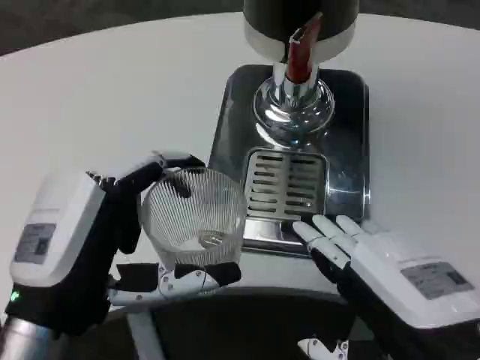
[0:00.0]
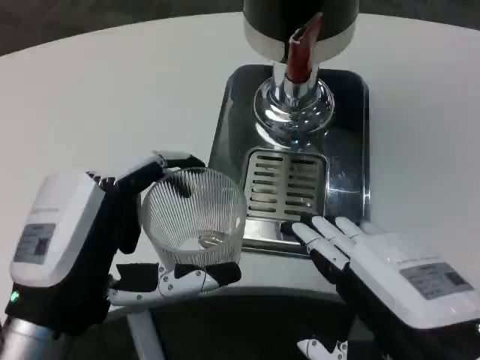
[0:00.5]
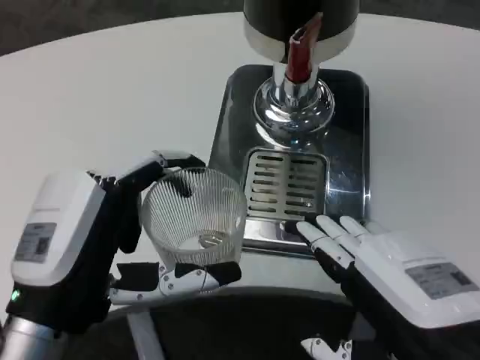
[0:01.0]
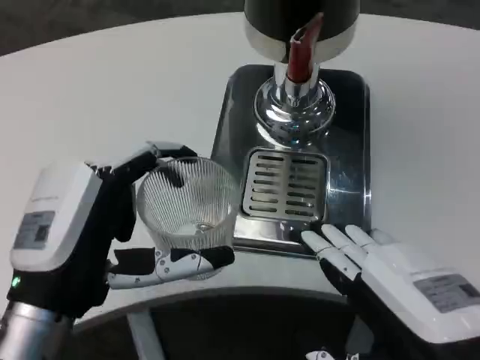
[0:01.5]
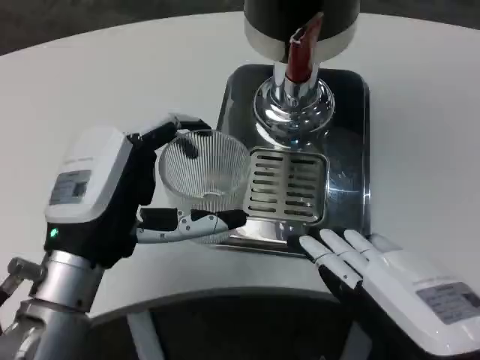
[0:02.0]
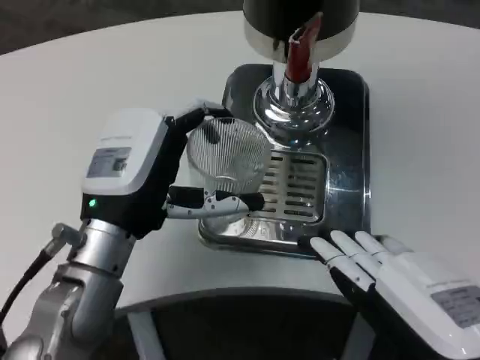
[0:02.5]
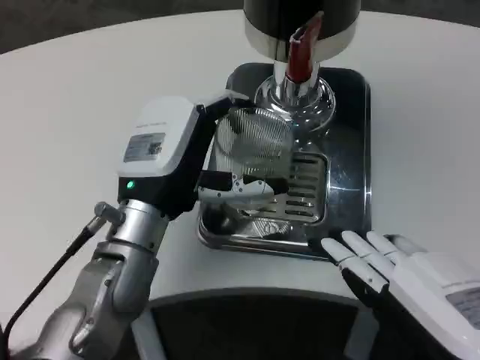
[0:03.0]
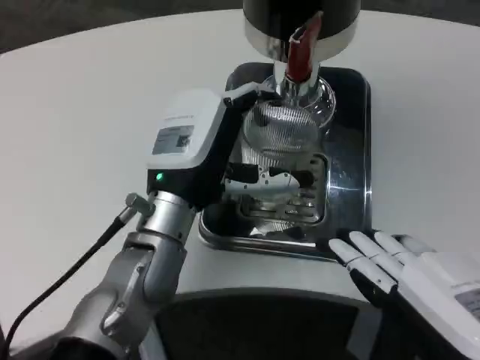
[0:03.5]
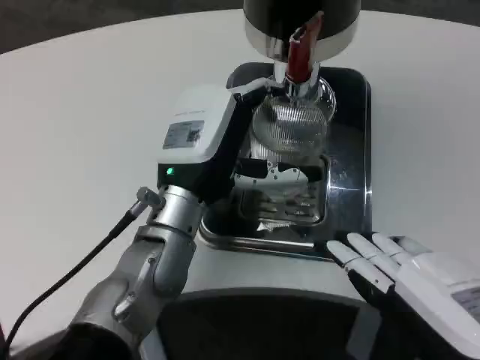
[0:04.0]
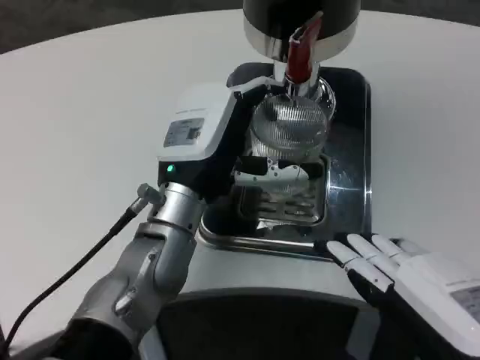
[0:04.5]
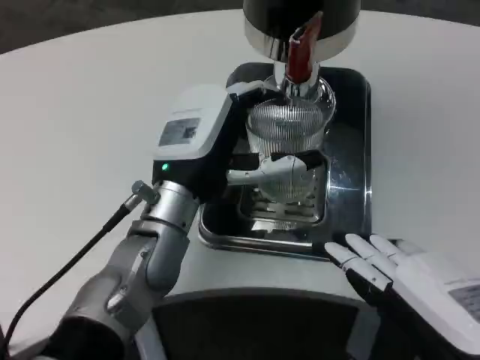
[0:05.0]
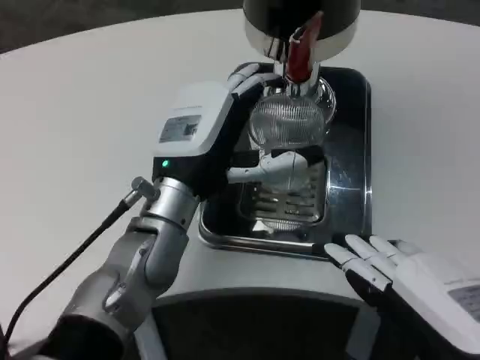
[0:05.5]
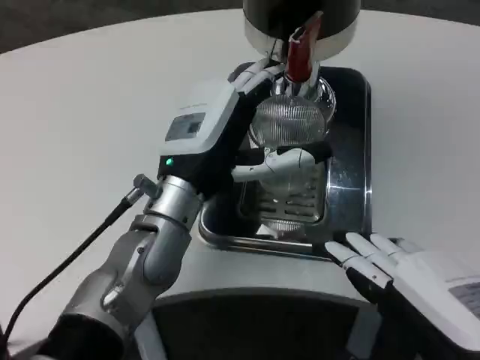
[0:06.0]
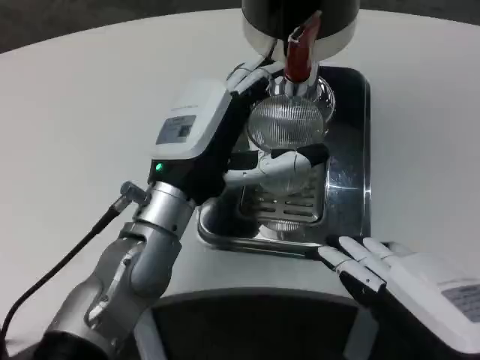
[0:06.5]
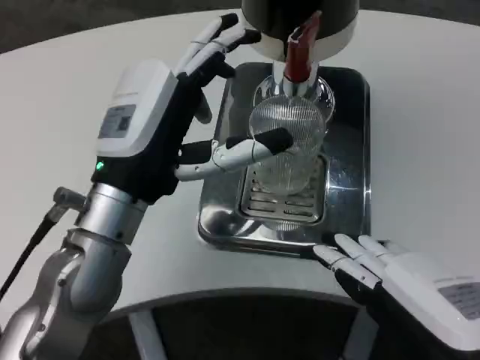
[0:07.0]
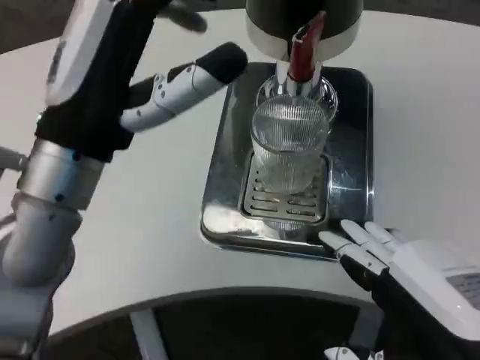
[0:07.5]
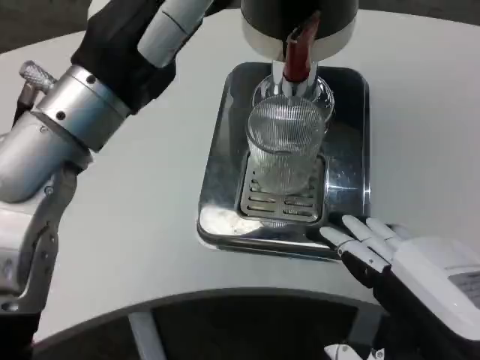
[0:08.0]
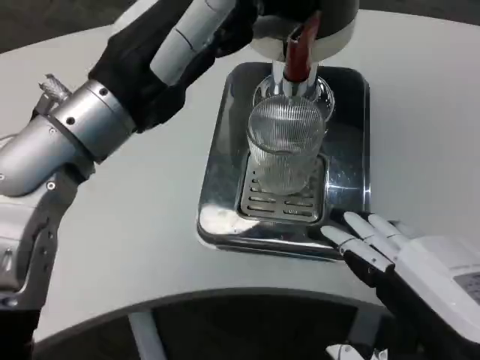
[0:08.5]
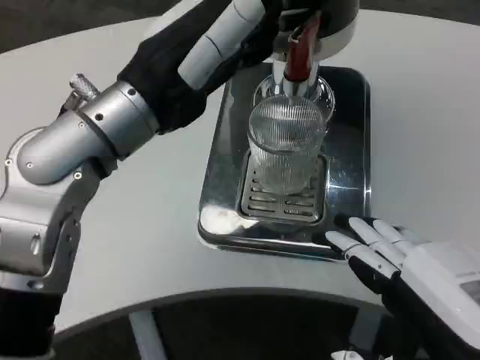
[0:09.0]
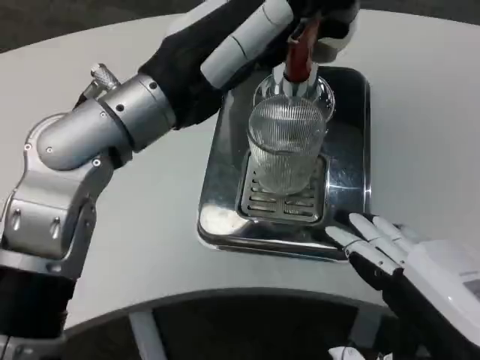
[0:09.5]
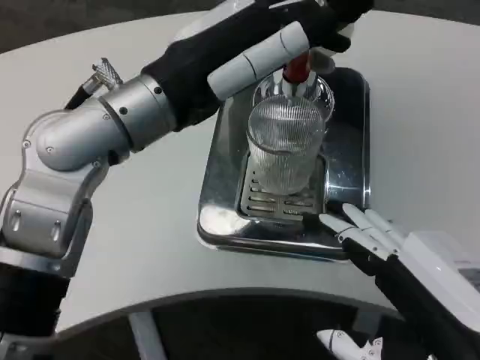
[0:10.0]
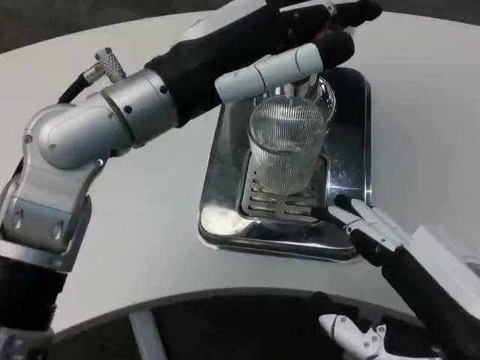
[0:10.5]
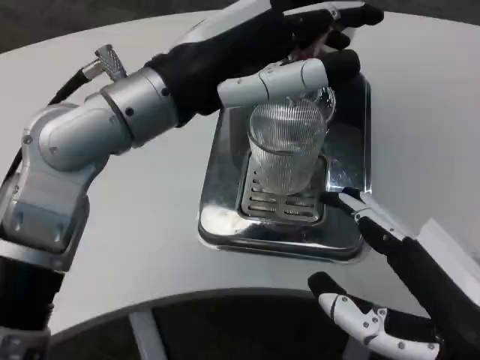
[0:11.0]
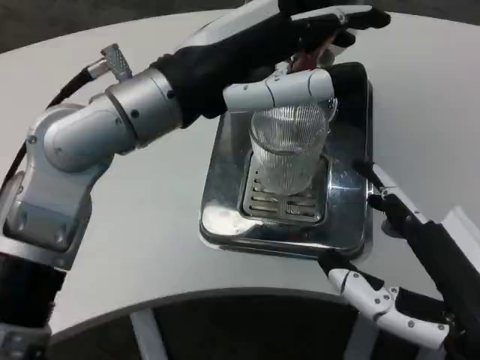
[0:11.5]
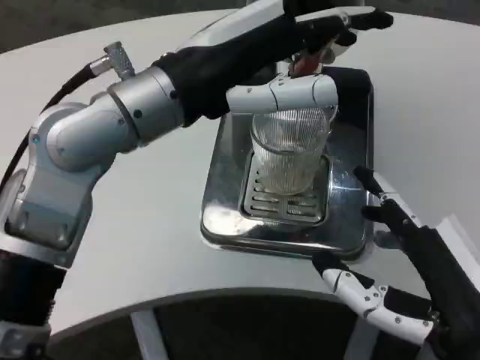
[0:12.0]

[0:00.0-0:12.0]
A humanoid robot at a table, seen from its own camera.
Task of the whole recording: Grasp the cup under the faucet to collect the drink, then remove the cup.
0:00.0 to 0:02.0: The left hand heads forward, covering approximately 5 cm.
0:02.0 to 0:04.0: The left hand moves forward and to the right, some 10 cm.
0:04.0 to 0:06.0: The hands stay close to where they were, moving slightly.
0:06.0 to 0:08.0: The left hand goes roughly 15 cm upward, to the left and backward.

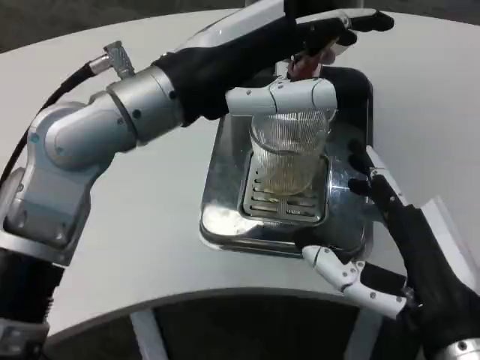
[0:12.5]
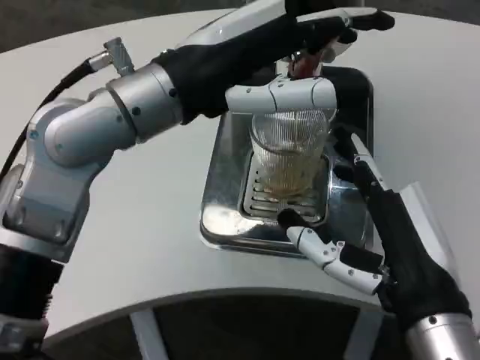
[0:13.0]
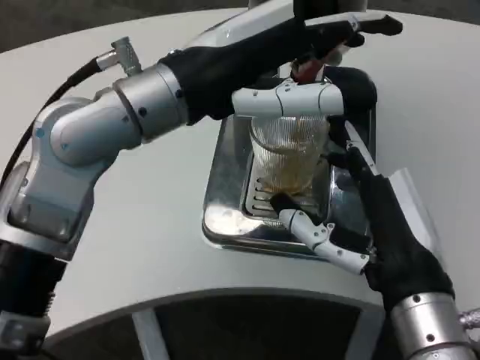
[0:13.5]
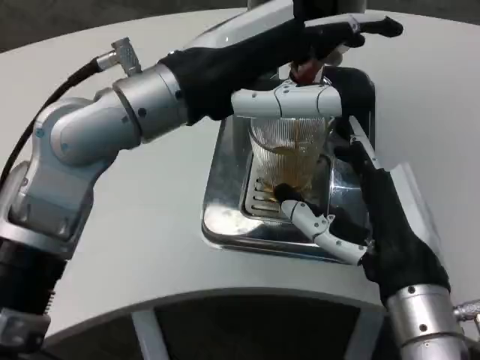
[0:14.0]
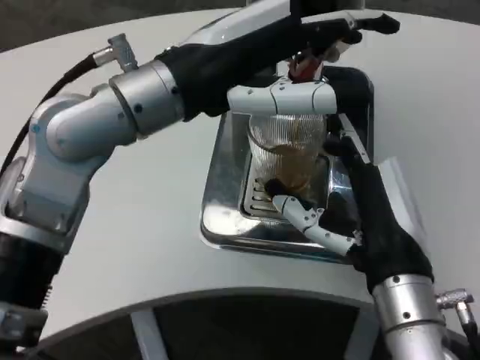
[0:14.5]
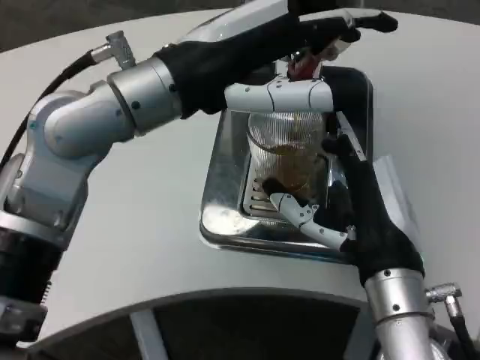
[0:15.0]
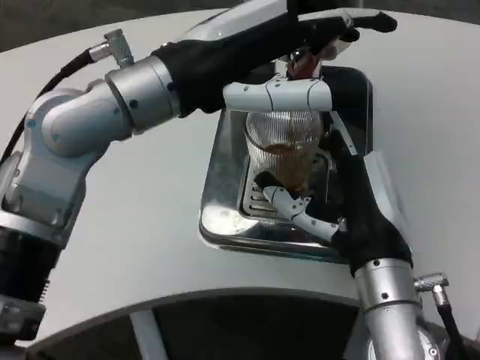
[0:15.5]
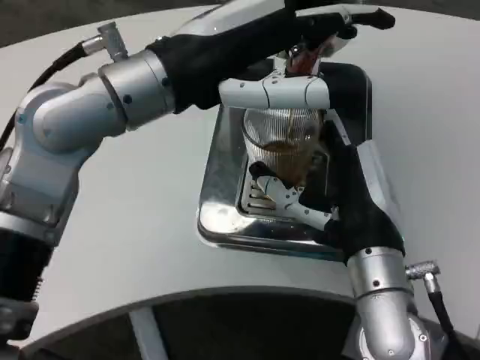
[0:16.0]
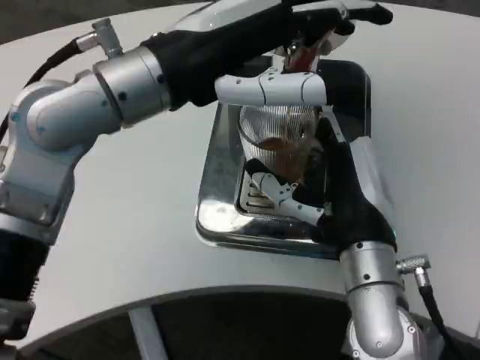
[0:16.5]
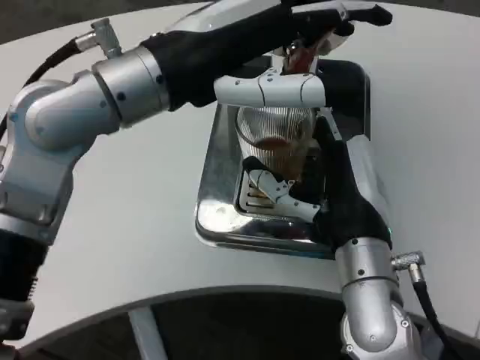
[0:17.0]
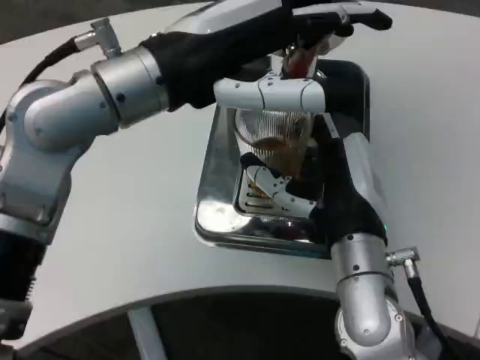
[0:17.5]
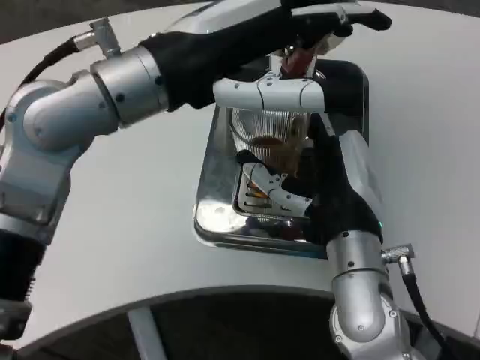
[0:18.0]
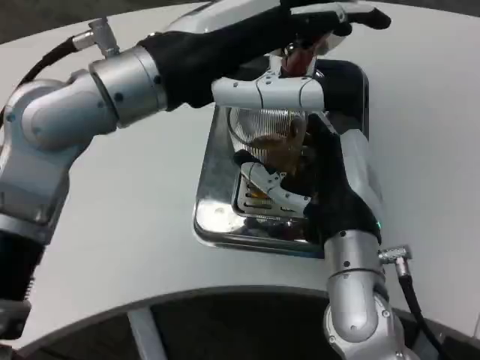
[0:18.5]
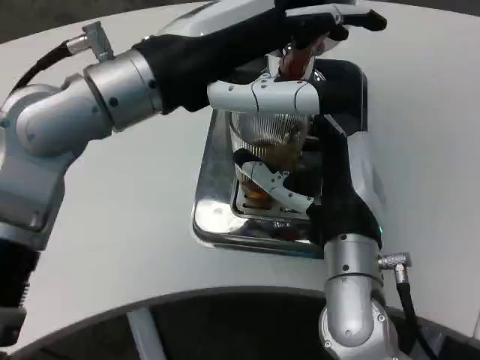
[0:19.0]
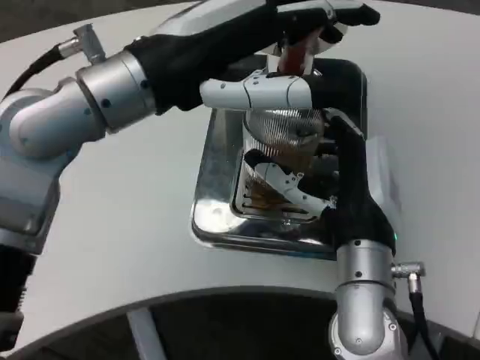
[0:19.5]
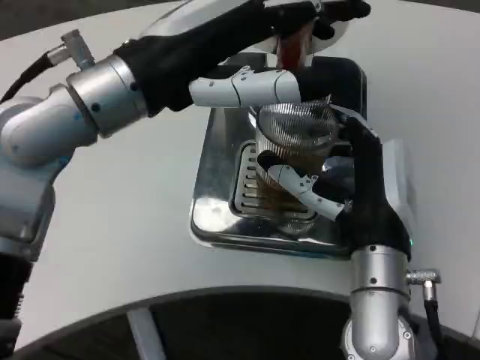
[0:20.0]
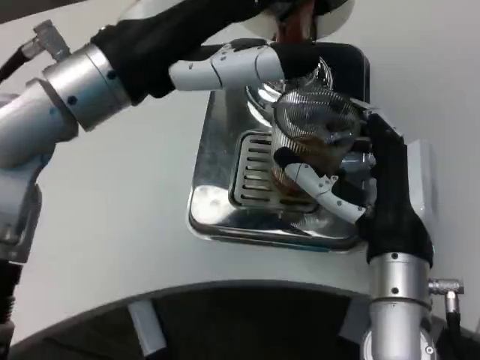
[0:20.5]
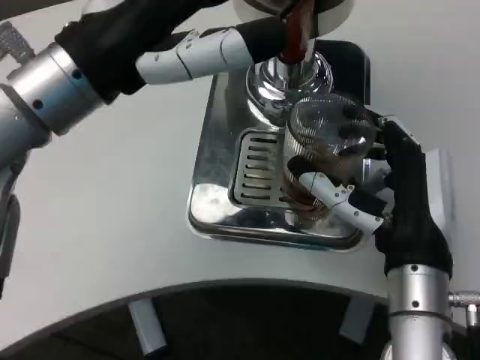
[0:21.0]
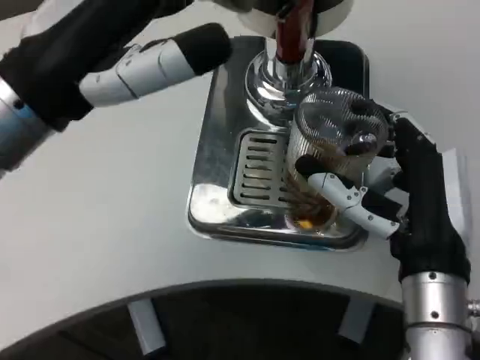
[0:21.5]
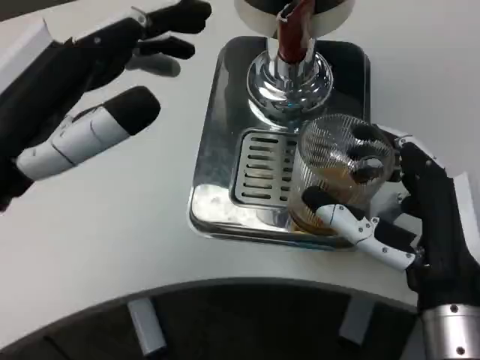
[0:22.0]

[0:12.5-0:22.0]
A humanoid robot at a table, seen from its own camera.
Task of the whole recording: Grasp the cup under the faucet to collect the drink, then remove the cup.
0:12.5 to 0:14.5: The right hand travels forward by some 5 cm.
0:16.5 to 0:18.0: The hands stay close to where they were, moving slightly.
0:20.0 to 0:22.0: The left hand travels backward, to the left and downward by roughly 15 cm. The right hand goes about 5 cm backward.

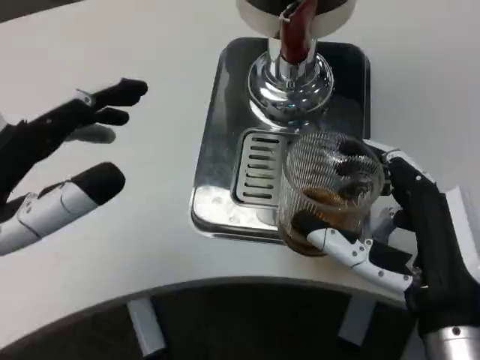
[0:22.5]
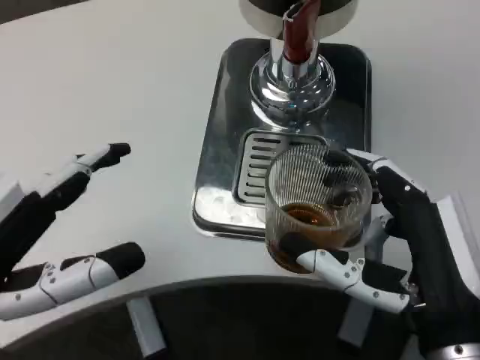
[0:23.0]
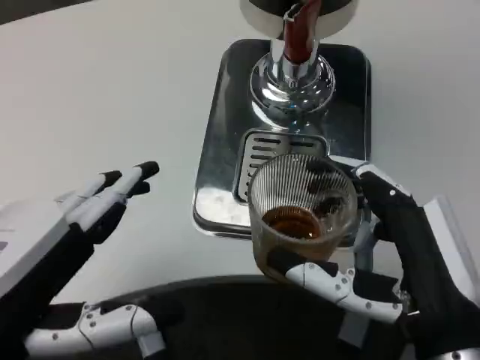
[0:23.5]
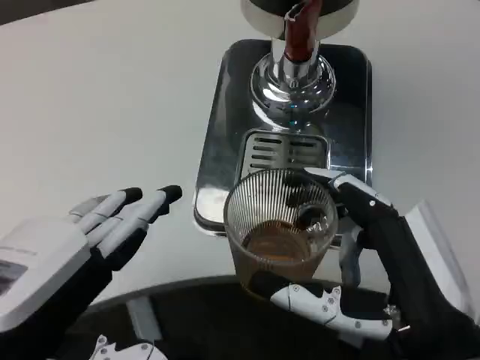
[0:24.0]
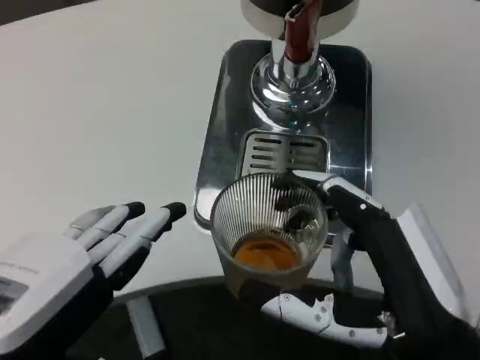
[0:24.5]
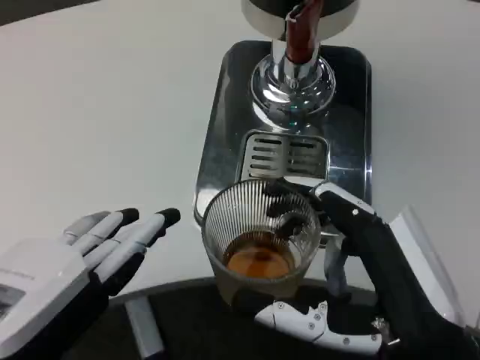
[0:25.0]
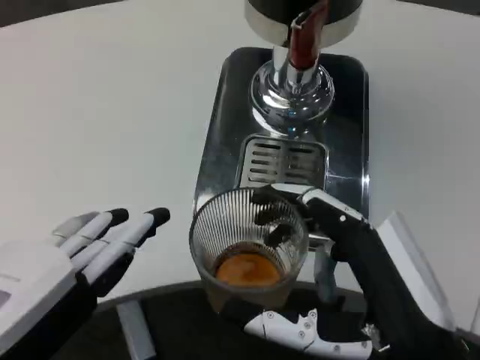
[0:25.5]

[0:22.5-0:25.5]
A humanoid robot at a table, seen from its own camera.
Task of the whole recording: Grasp the cup under the faucet to collect the drink, then remove the cup.
0:22.5 to 0:24.0: The left hand ends up roughly 5 cm from where it was.

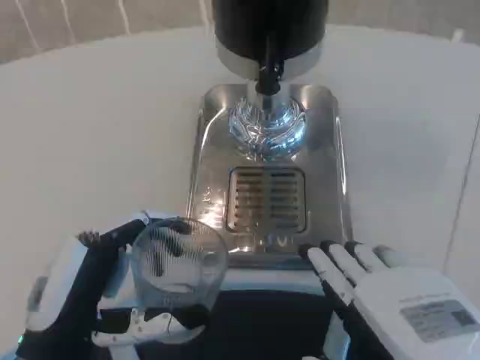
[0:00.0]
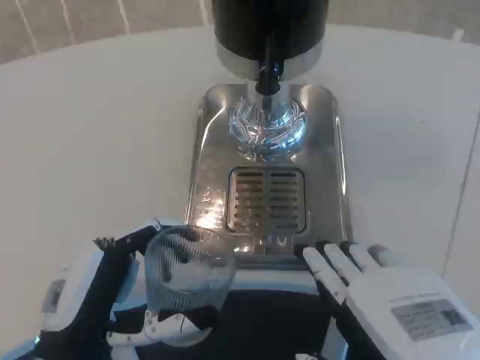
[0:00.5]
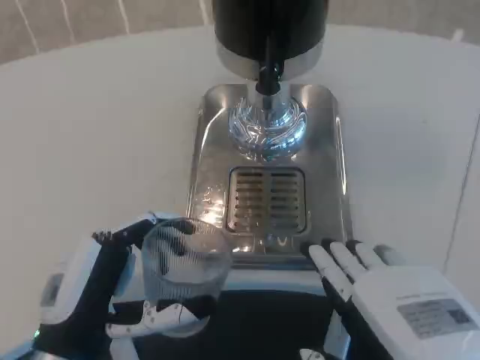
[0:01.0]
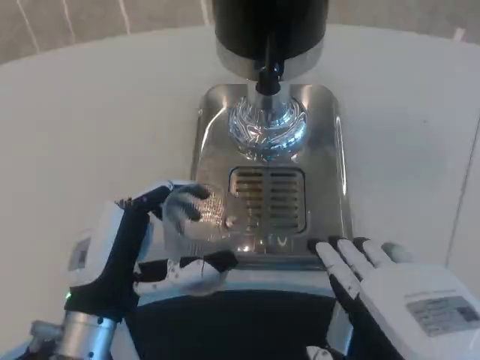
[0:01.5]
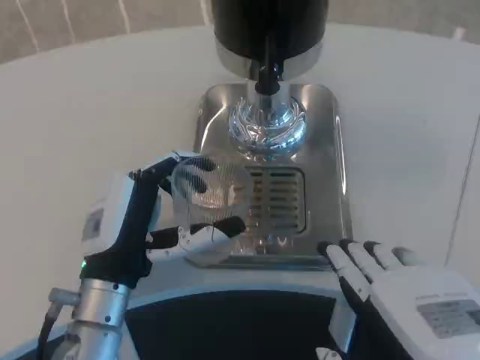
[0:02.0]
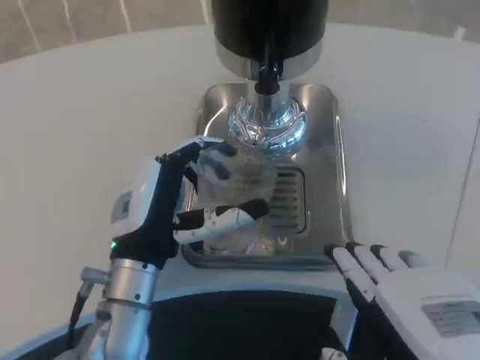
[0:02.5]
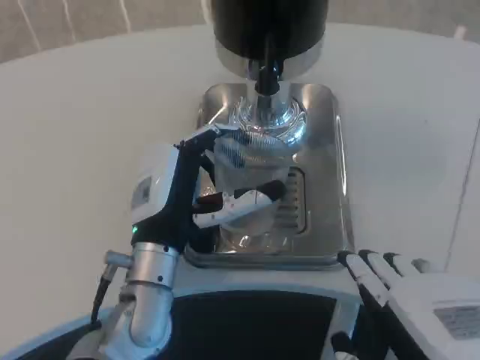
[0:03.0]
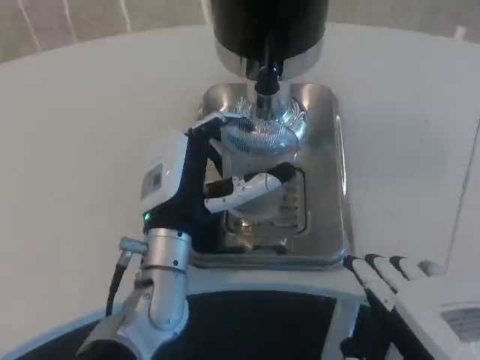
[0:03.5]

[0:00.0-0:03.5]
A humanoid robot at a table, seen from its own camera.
Task of the whole recording: Grasp the cup under the faucet to collect the drink, then remove the cup.
0:00.0 to 0:02.0: The left hand is displaced forward by approximately 10 cm.
0:02.0 to 0:03.5: The left hand shifts some 5 cm to the right.
